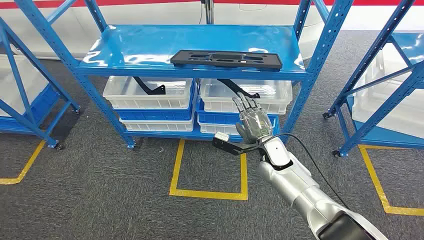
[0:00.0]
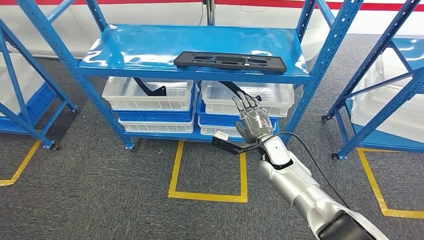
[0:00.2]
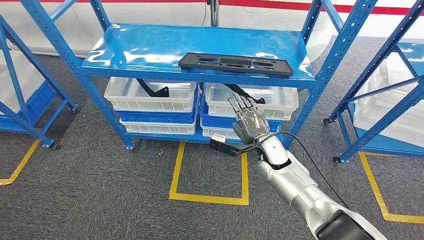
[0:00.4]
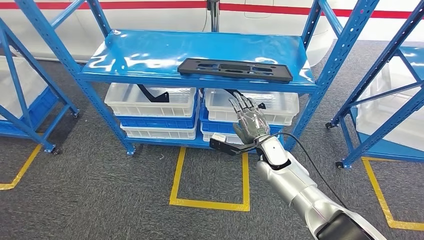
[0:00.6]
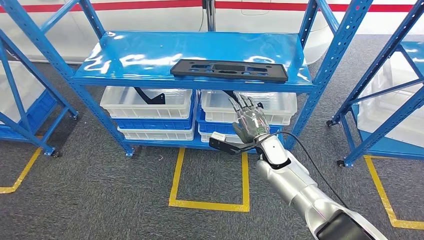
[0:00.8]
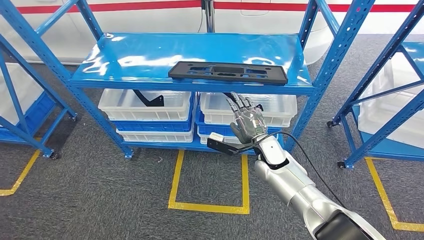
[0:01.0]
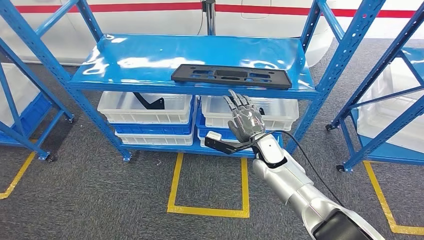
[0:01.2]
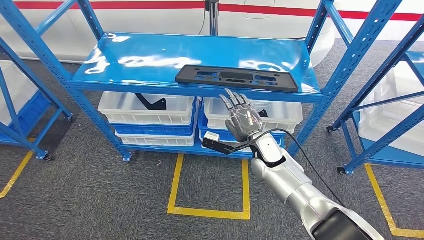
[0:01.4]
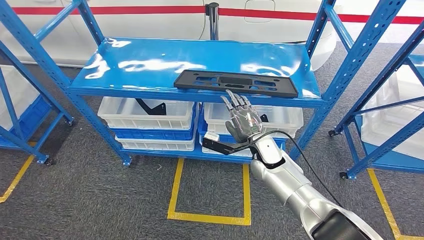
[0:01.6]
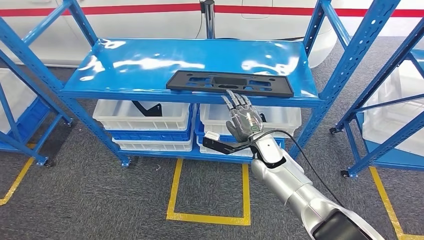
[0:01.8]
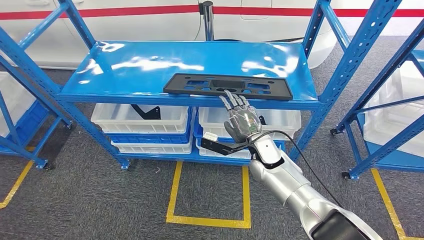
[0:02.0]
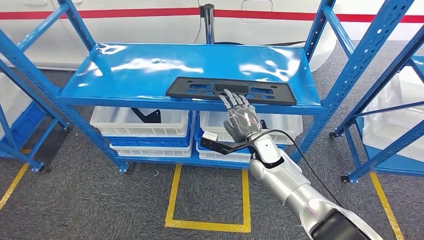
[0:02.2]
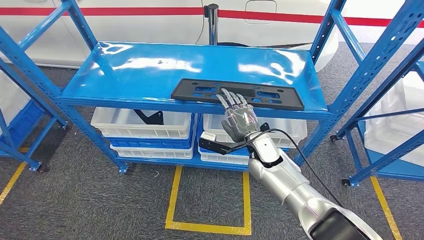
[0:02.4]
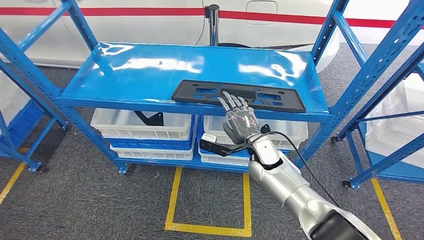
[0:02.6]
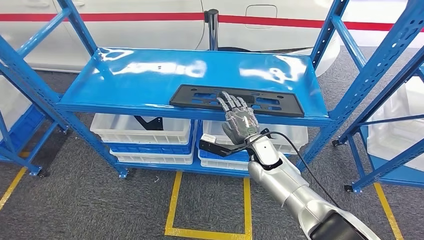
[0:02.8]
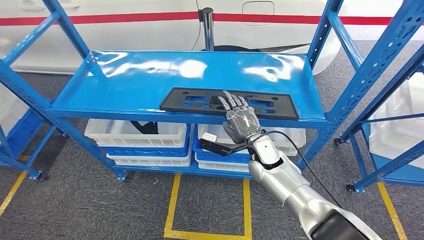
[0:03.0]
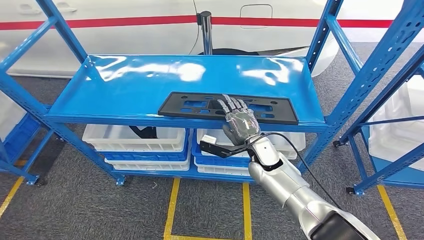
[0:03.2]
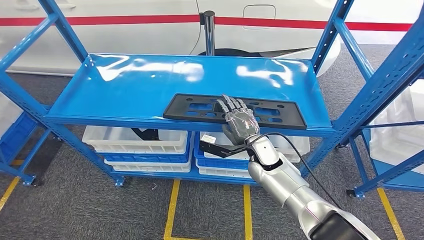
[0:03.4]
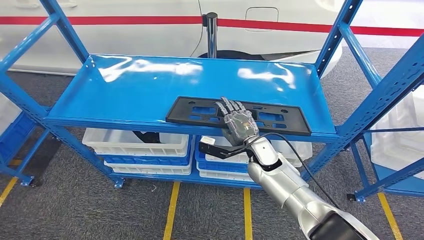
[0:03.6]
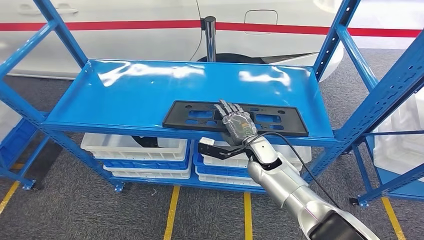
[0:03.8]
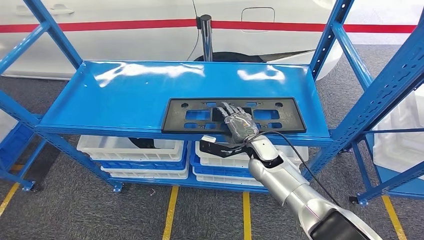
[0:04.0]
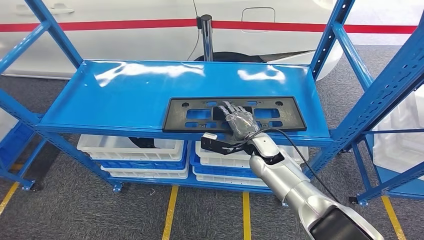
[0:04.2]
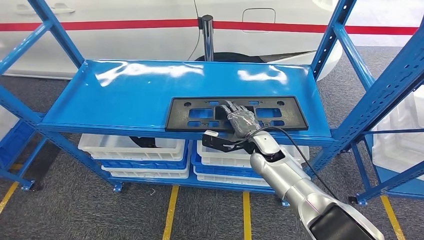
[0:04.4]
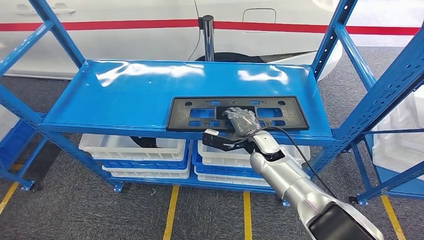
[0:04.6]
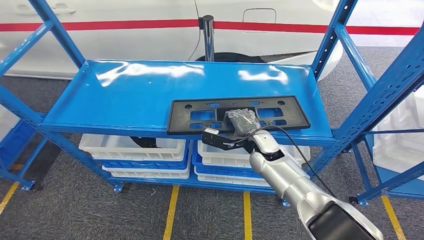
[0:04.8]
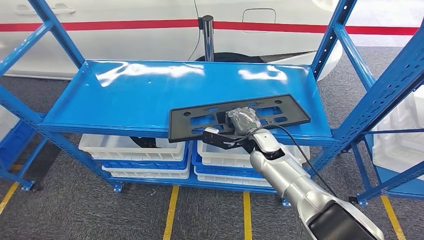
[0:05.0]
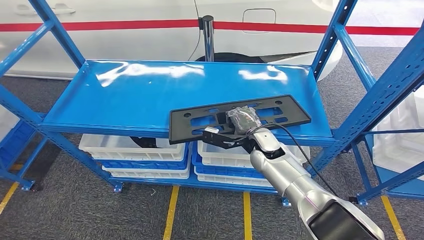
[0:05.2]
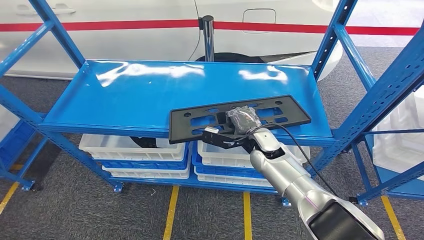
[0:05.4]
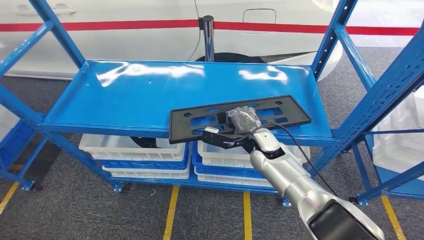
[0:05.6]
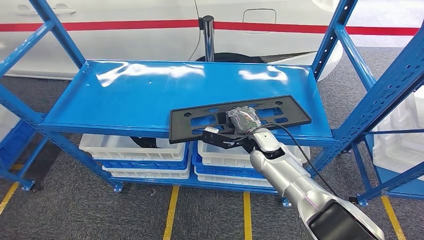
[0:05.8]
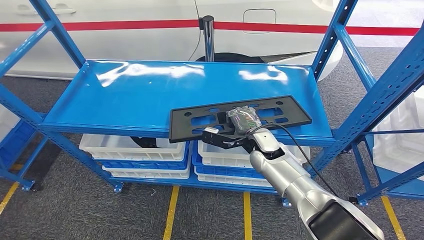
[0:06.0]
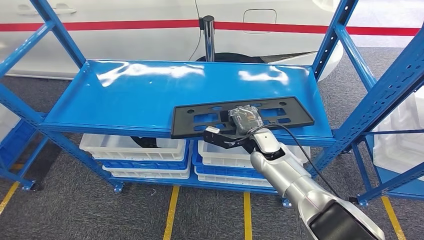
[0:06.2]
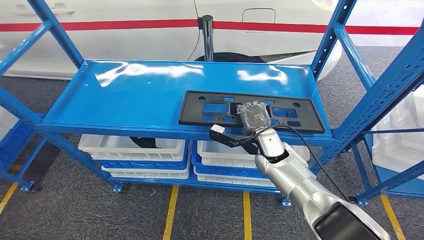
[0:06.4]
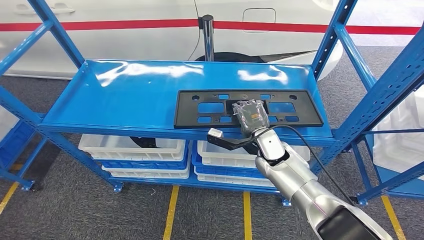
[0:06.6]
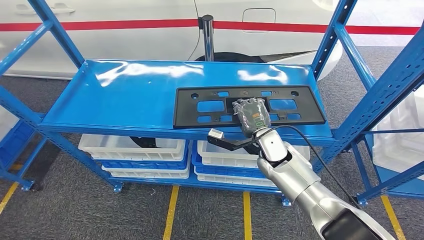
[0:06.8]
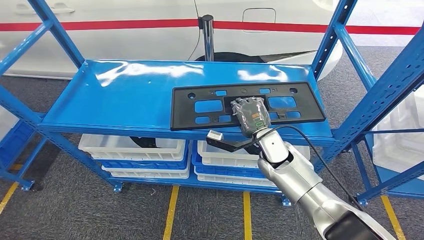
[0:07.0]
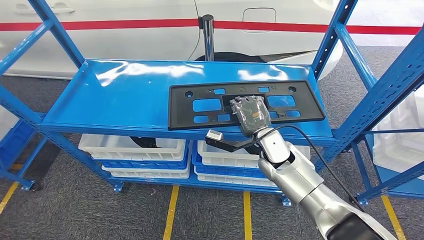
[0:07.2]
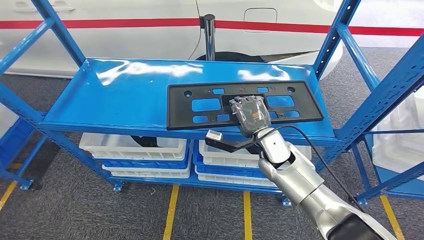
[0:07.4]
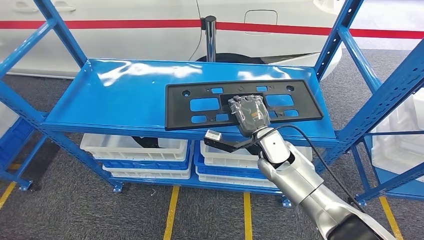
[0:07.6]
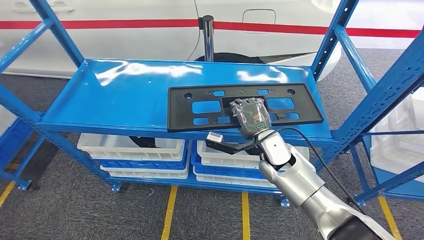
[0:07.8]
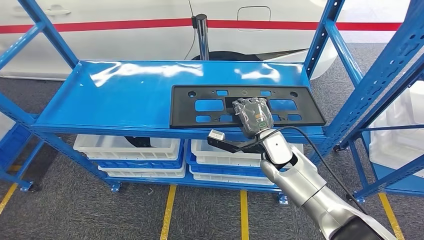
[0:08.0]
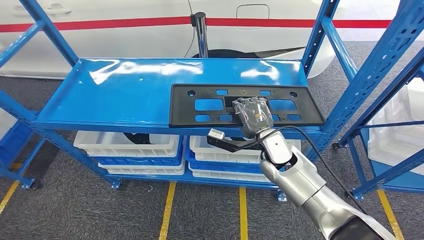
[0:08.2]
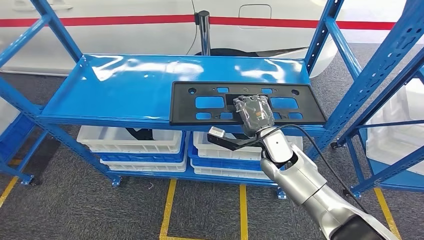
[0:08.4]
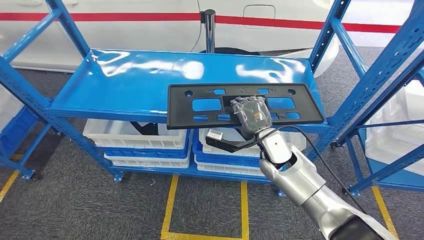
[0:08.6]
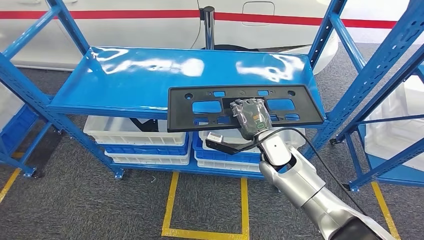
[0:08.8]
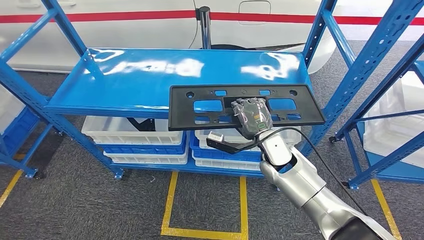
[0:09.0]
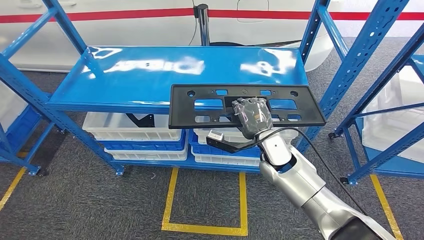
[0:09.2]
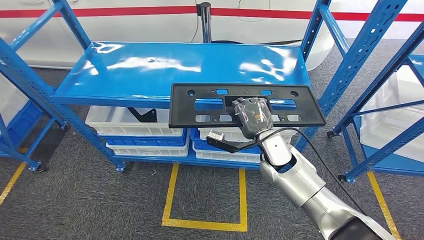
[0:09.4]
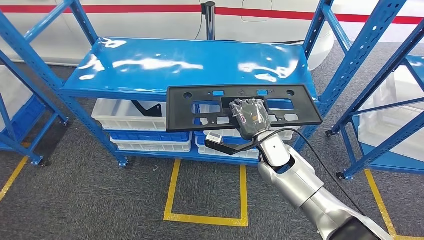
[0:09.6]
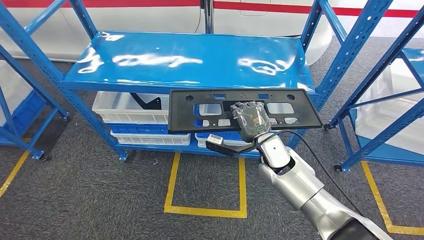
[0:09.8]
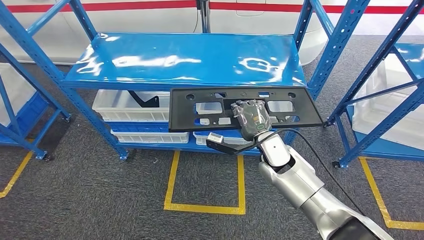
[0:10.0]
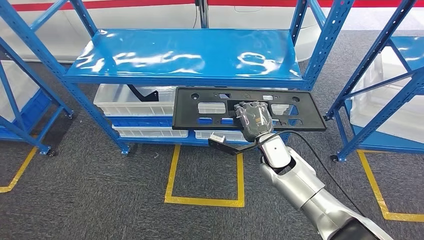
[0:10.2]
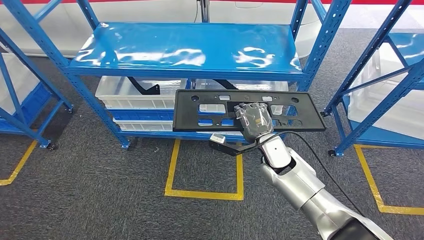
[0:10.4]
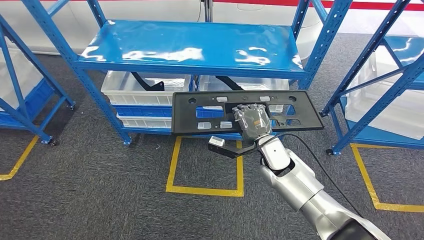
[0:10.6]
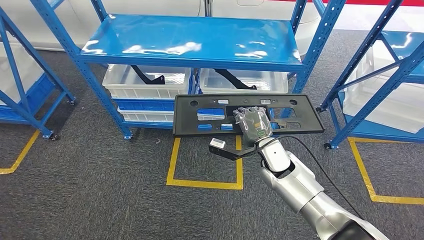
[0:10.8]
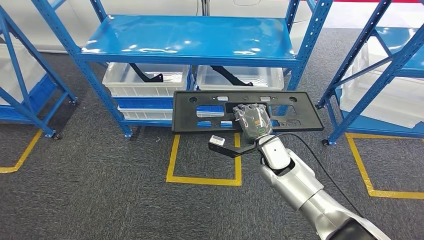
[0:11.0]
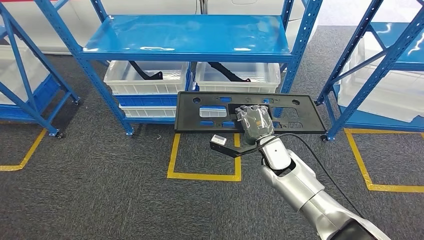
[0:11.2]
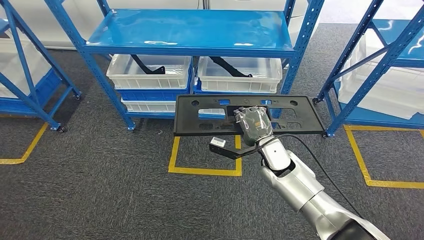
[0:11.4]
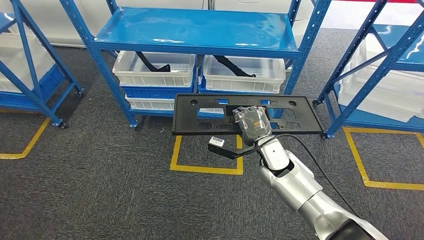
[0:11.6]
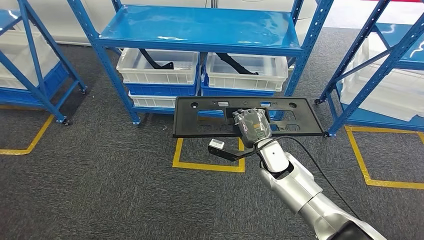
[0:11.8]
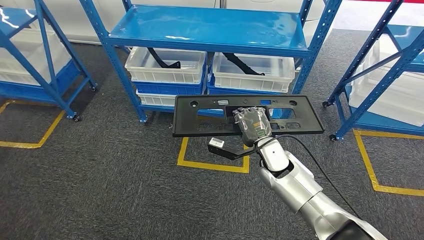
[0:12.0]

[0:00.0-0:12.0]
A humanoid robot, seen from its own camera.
Step, 0:00.0 to 0:09.4: Pick up the large material from the shelf.
0:04.4 to 0:06.0: The hands stay close to where they were, moving slightly.

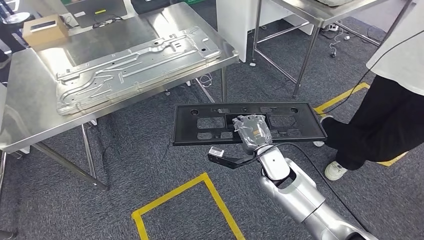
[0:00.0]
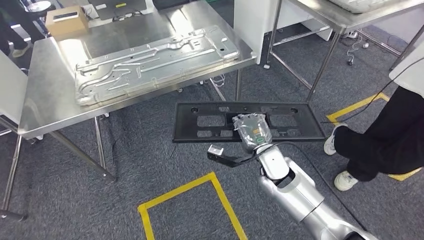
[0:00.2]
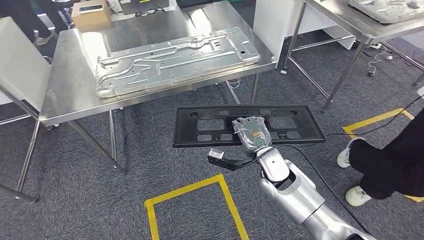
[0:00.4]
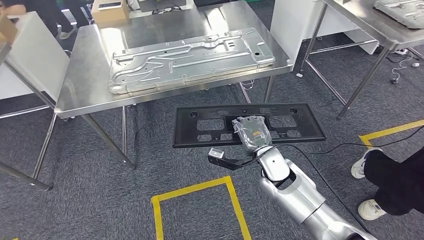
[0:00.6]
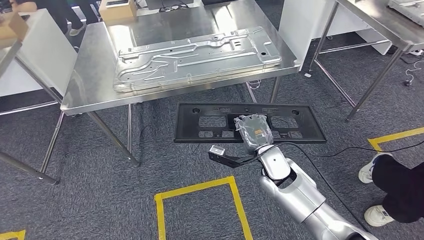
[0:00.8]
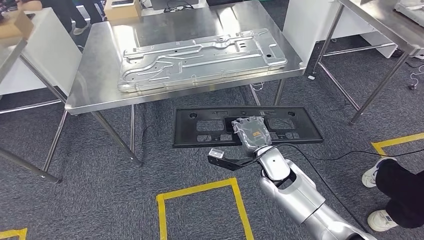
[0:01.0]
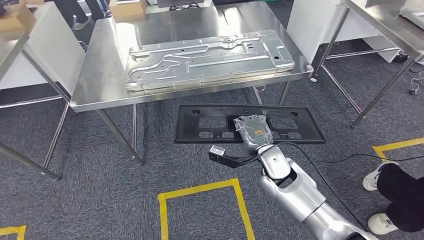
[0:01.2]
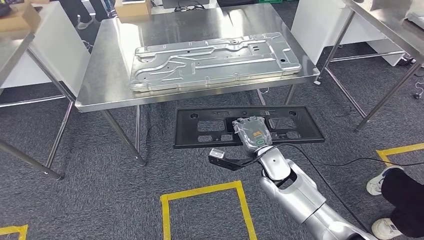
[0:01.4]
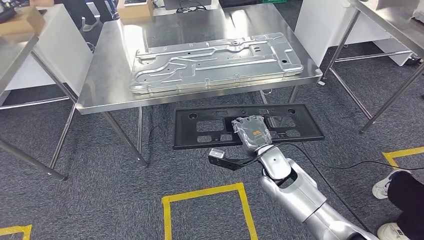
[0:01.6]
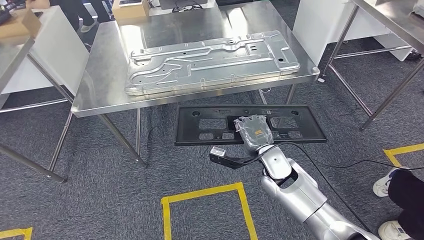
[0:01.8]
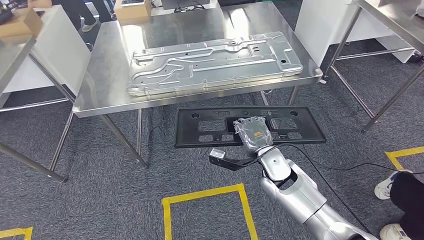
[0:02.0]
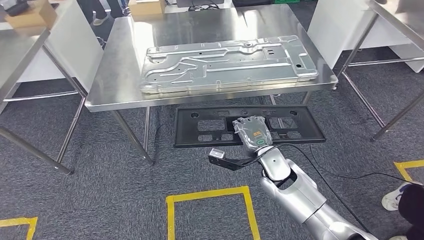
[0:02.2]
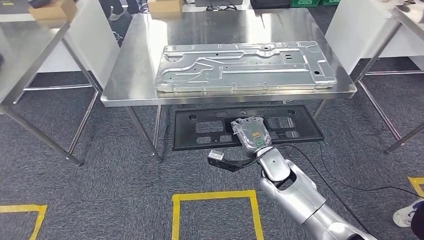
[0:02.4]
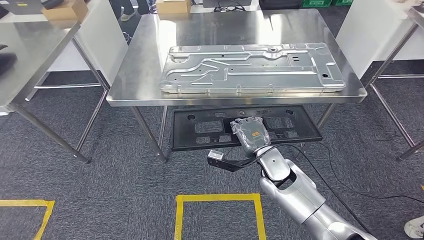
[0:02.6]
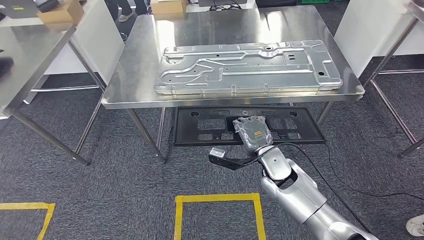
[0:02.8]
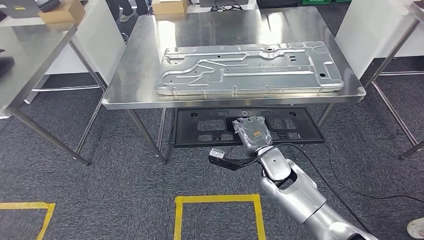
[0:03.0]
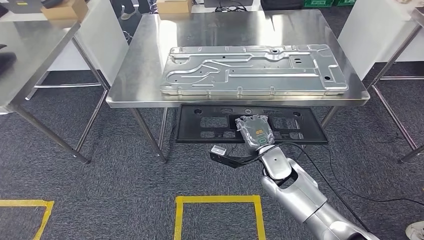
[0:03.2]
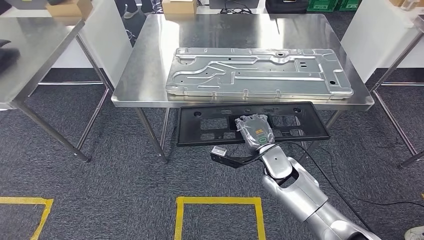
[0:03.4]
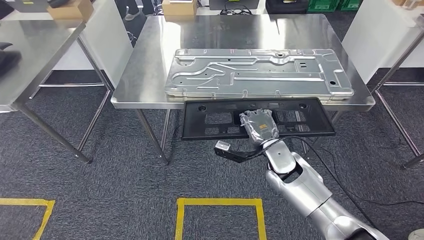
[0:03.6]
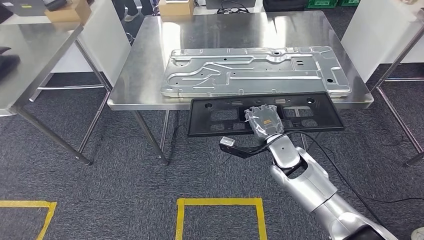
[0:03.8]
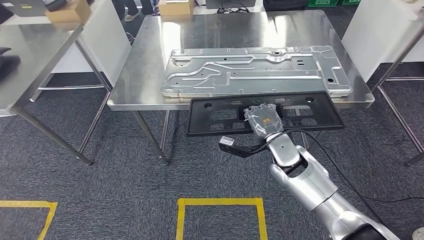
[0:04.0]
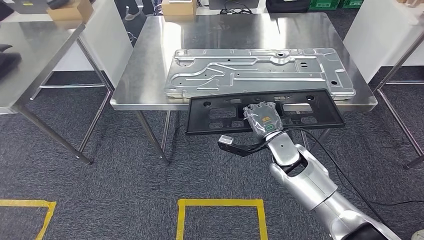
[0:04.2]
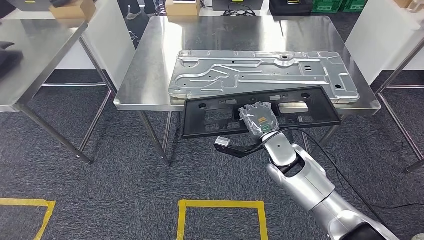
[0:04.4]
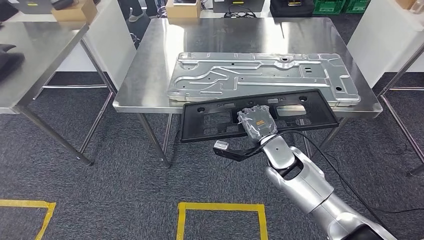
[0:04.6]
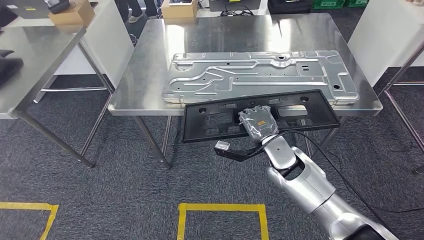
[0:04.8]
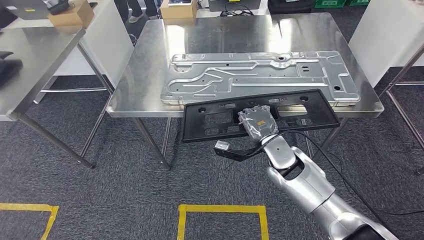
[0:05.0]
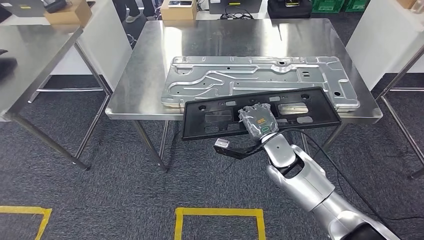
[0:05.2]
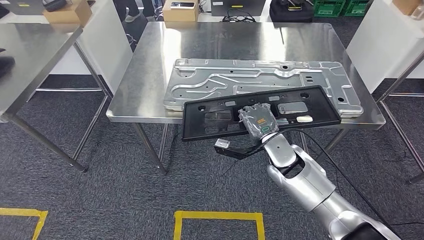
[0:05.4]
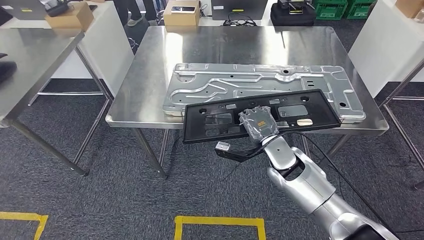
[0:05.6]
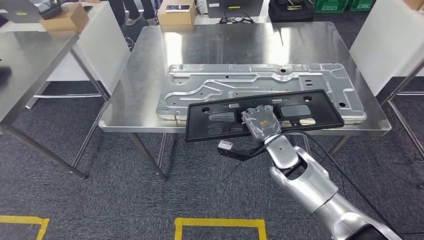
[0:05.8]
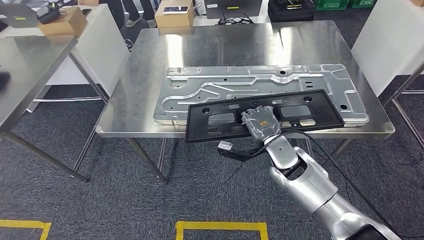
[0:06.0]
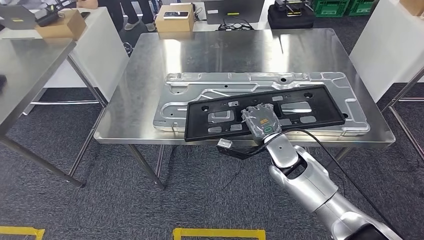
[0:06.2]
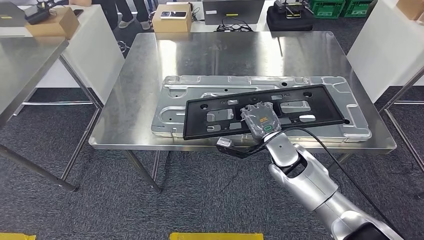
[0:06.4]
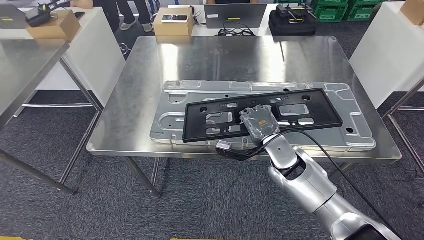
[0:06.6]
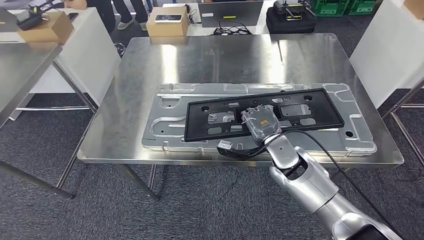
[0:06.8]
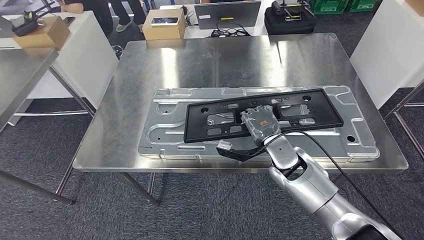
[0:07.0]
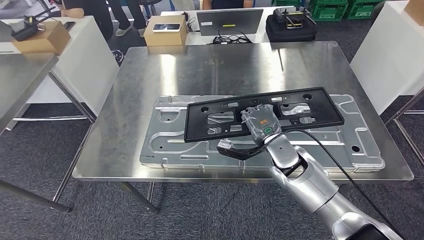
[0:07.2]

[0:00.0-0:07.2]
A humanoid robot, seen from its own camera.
Step, 0:00.0 to 0:04.0: Move the large material to the workbench.
